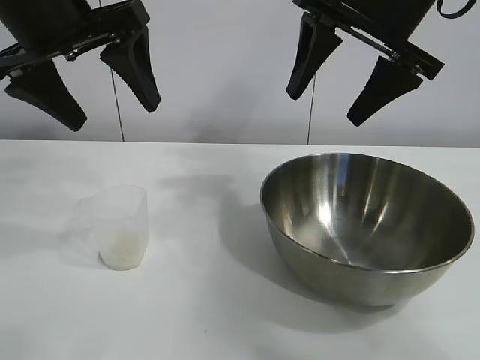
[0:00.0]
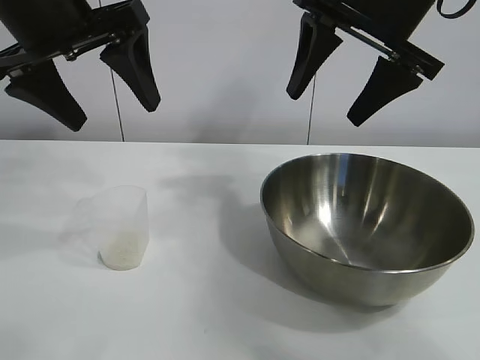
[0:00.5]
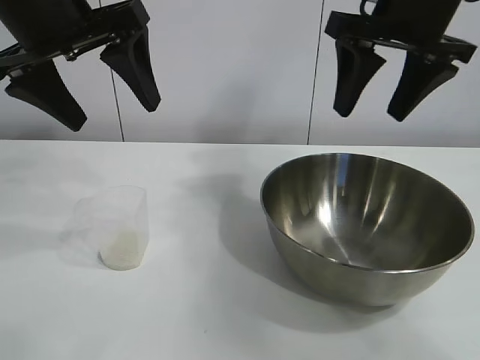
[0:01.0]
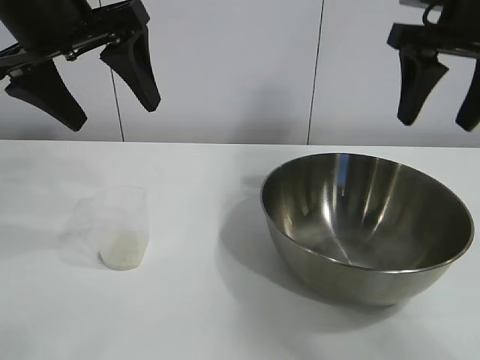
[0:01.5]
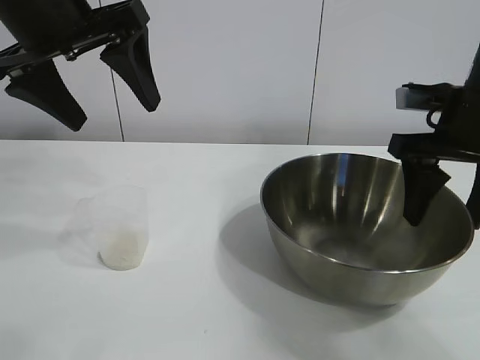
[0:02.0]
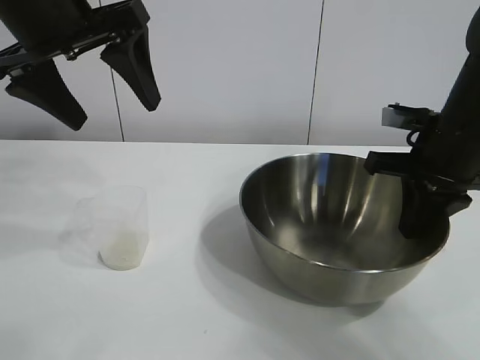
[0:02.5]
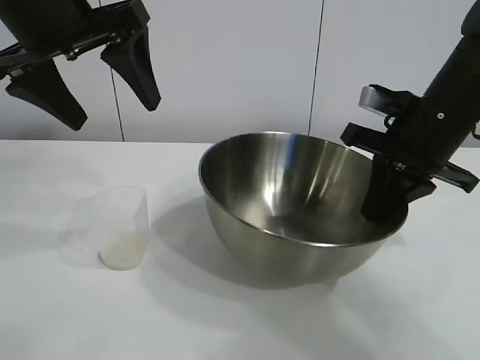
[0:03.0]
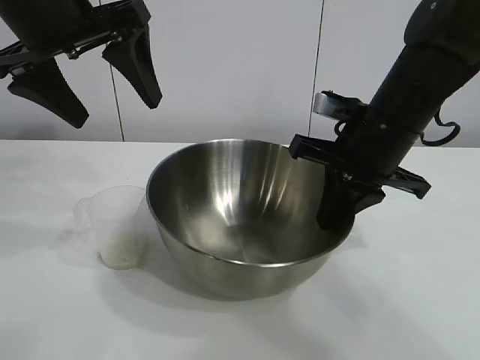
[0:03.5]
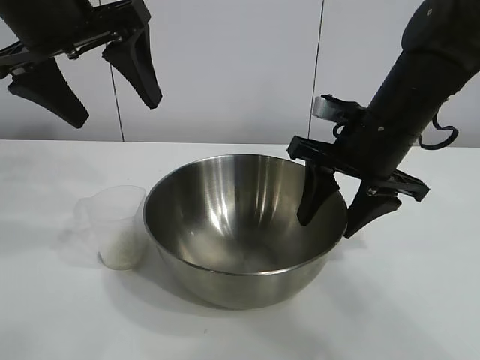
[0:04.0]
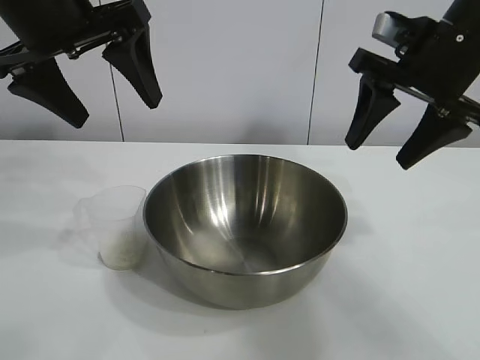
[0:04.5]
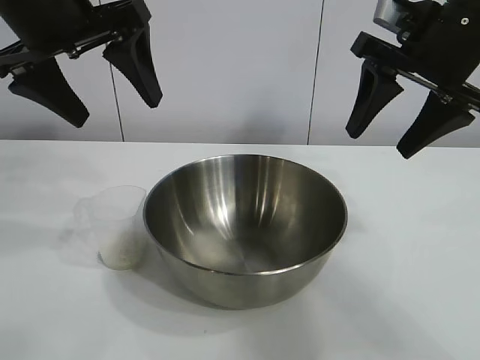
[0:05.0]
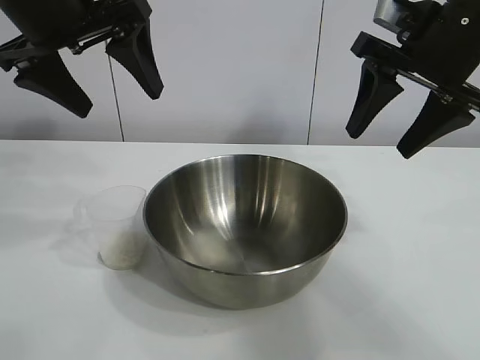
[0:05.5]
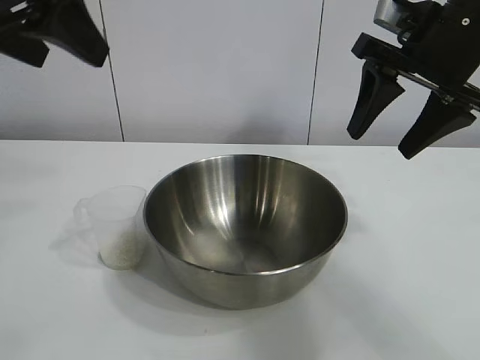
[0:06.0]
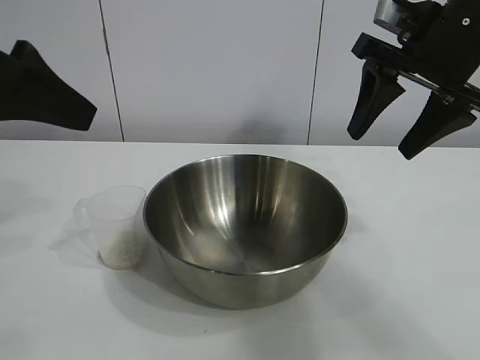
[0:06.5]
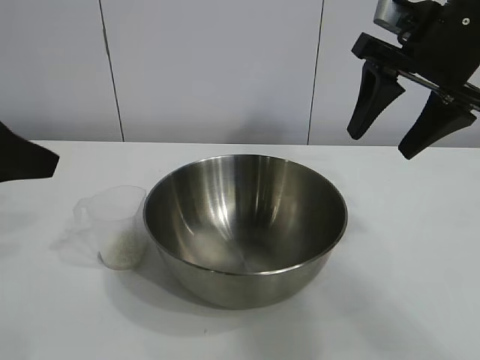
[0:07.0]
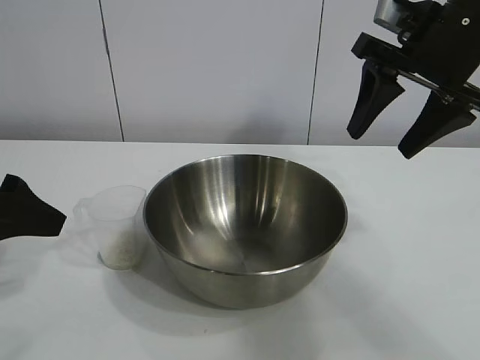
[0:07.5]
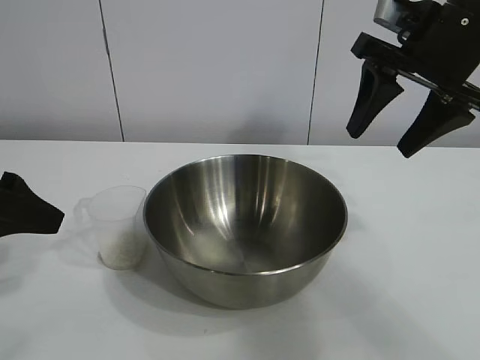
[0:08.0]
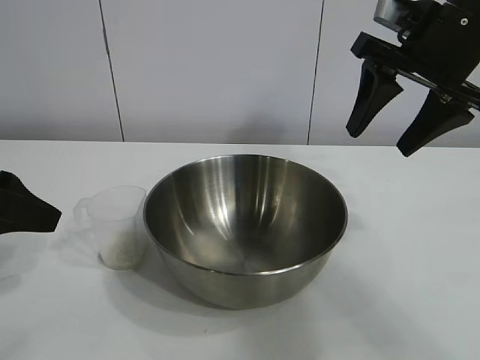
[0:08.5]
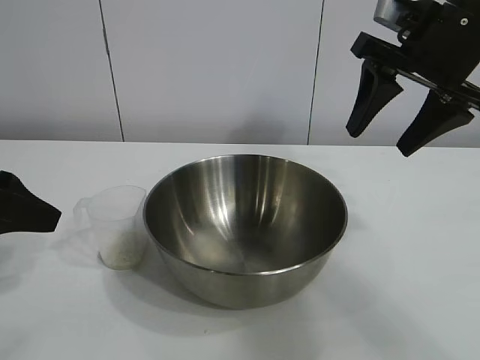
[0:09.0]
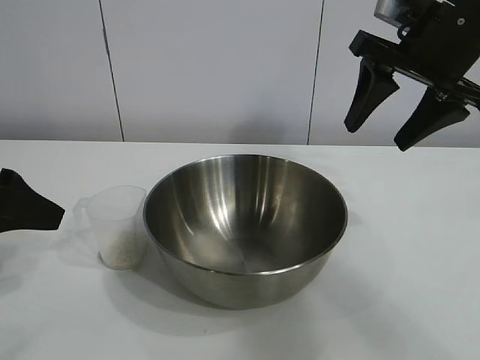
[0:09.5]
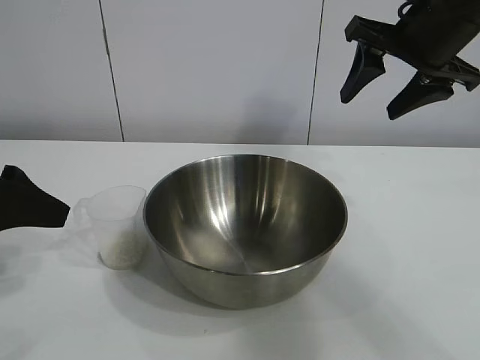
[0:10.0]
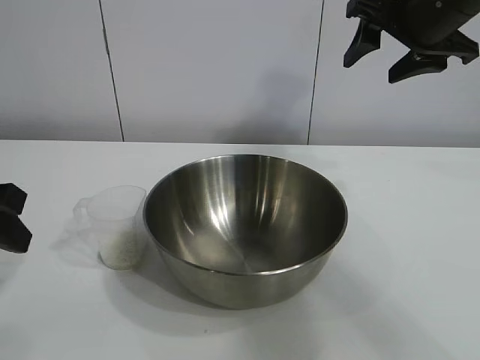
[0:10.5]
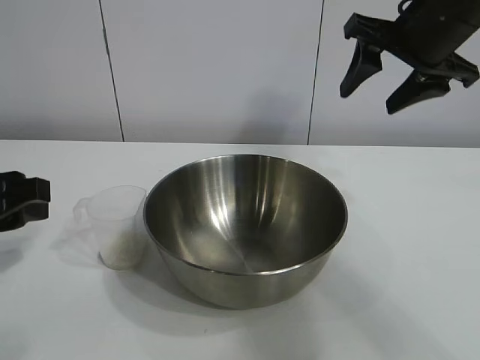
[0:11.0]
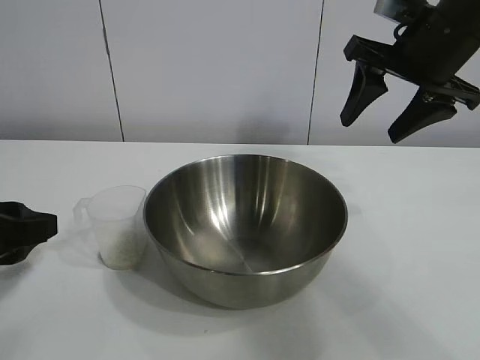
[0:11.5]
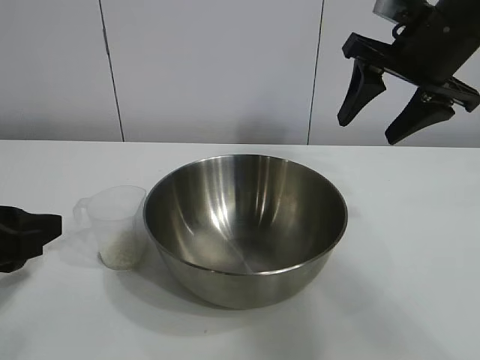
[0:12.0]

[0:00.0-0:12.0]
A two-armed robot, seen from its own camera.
Task of the whole recording: the right gripper grasp the rice container and place it in the center of the table, the left gripper grasp the rice scoop and pour the rice into the rice container.
Step, 0:01.0 to 0:04.0: Move the bowl in the center of view with right gripper.

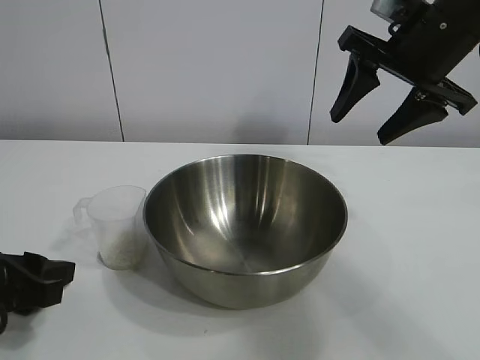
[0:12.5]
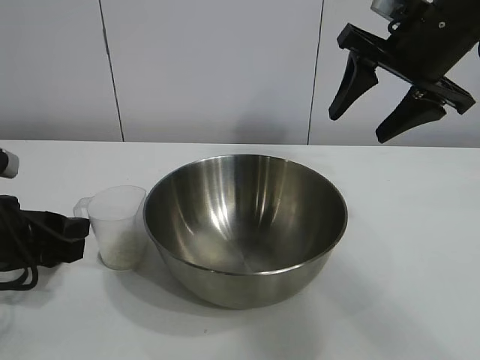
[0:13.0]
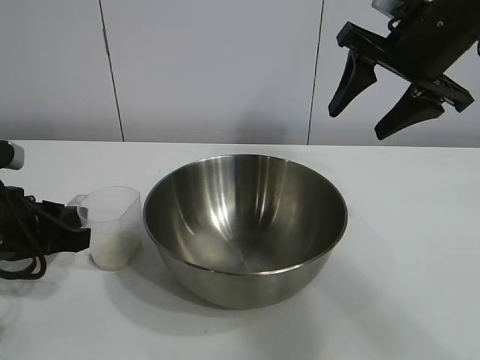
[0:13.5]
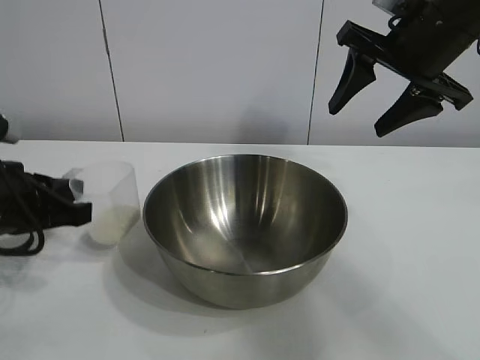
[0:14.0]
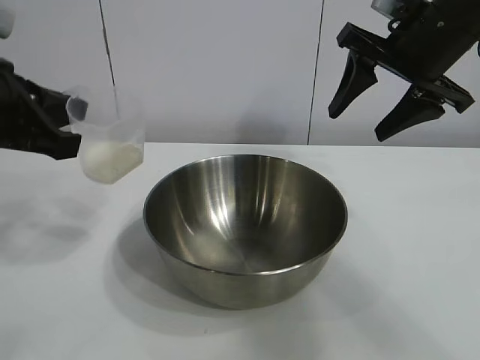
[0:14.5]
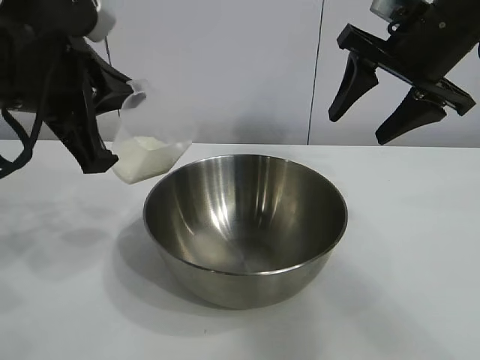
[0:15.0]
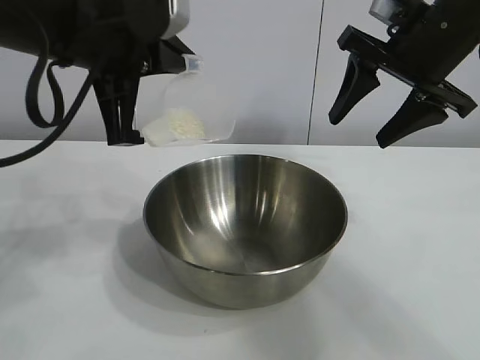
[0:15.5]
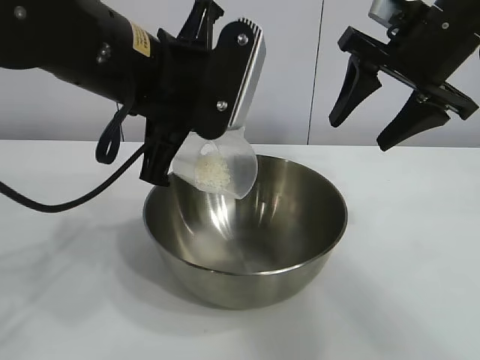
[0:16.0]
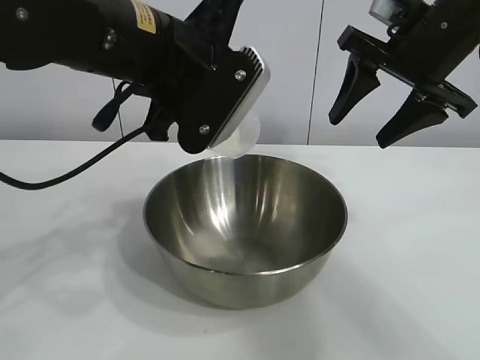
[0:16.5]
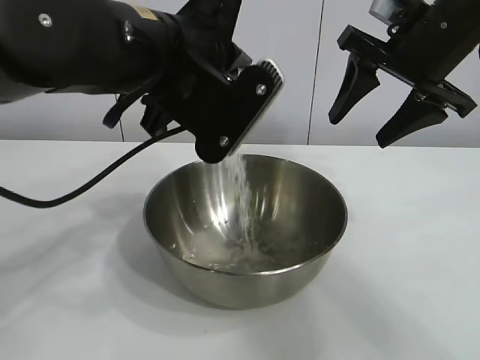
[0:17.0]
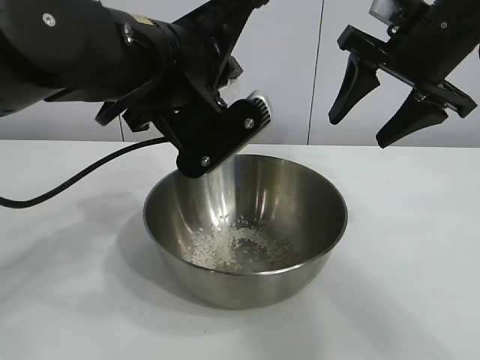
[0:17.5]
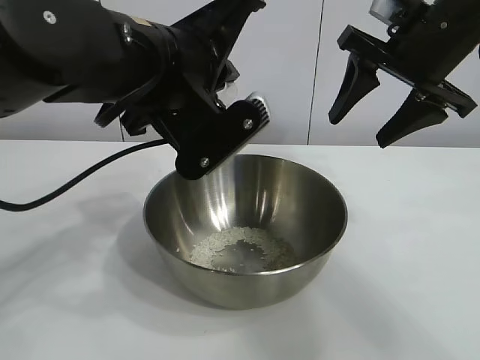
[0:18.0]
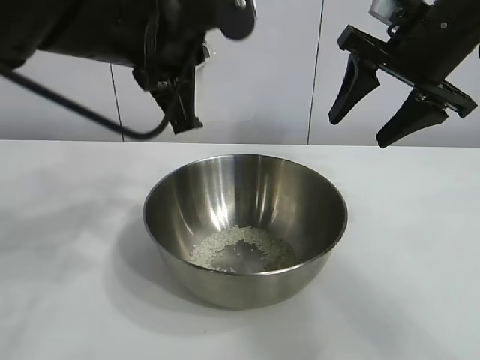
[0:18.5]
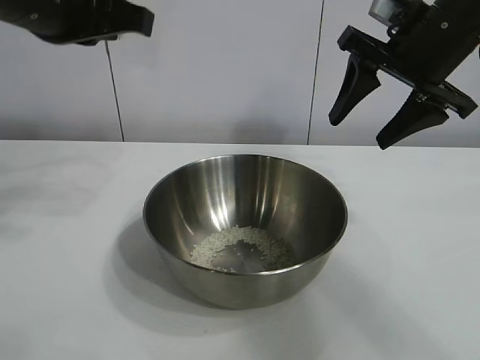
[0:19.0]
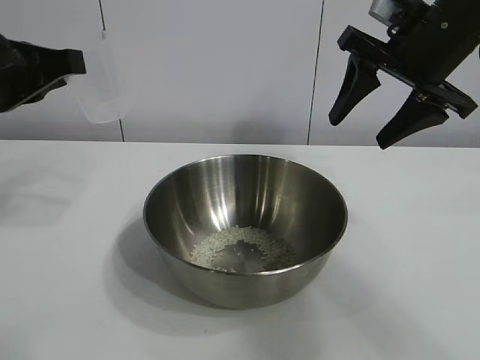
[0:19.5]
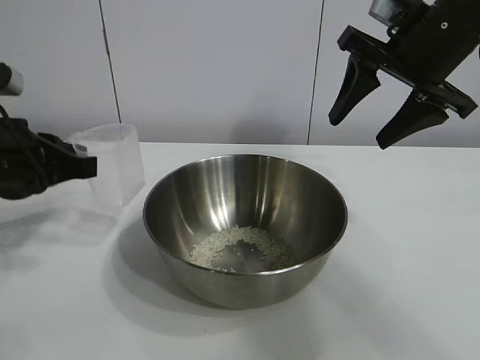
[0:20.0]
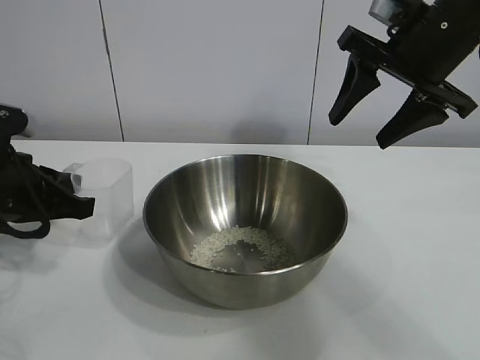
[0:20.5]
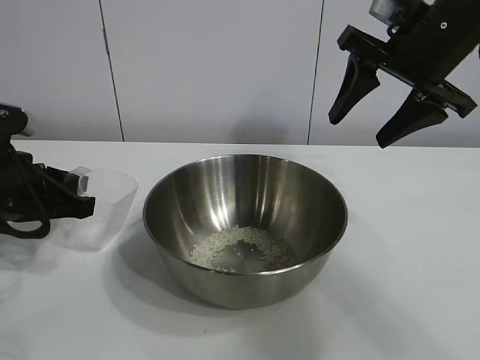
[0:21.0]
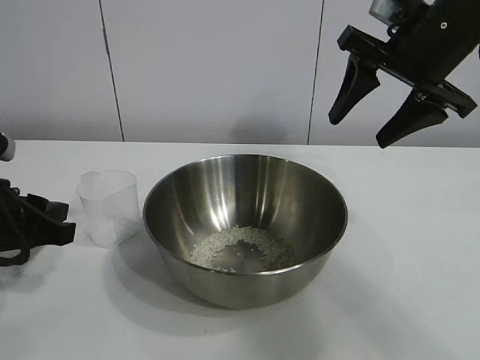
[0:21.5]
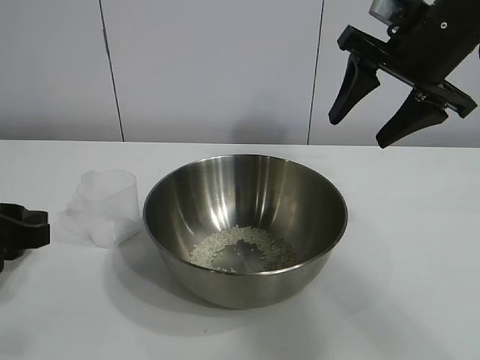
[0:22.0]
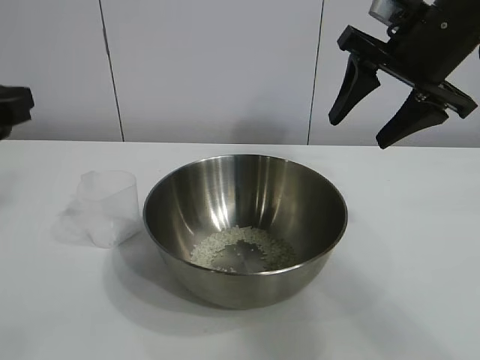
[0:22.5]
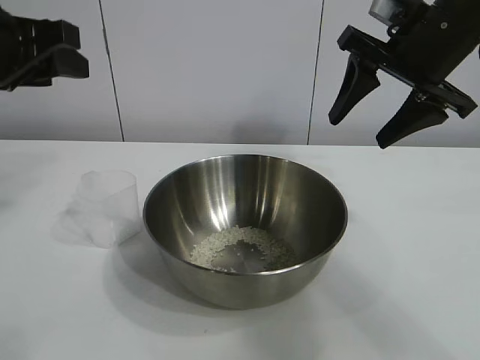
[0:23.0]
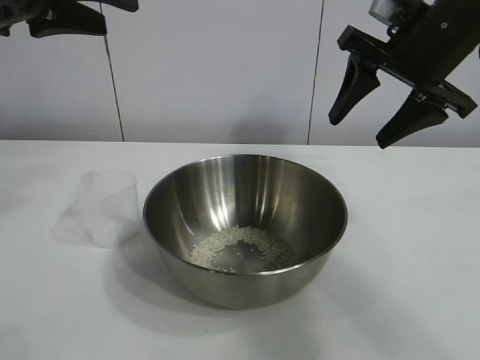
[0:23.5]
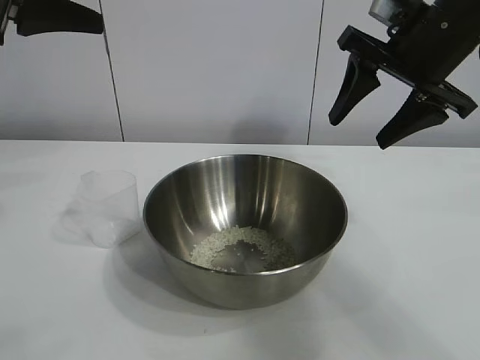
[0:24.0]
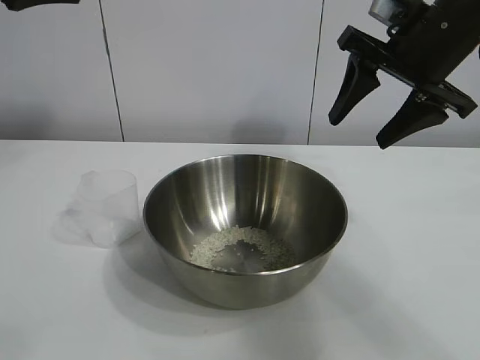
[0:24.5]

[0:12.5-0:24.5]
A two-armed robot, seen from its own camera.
Task of the whole recording: the right gripper grasp the rice container and place it in the center of the table, the left gripper grasp the rice scoop and pour the rice into the rice container.
Step, 0:14.0 to 0:17.5: Pour the rice from the cup into the bowl with the left gripper.
Step, 0:18.0 to 0:21.0: Place the cup on the table with the left gripper.
